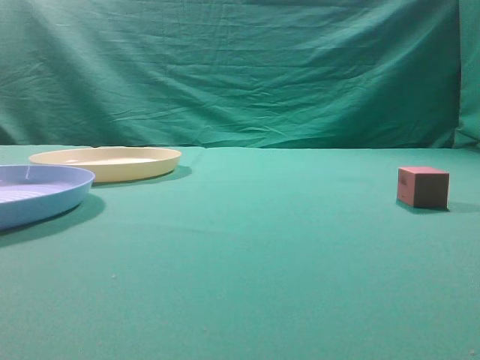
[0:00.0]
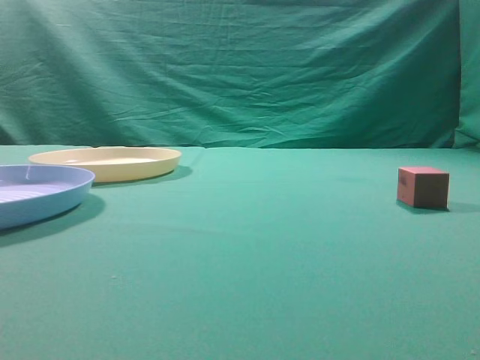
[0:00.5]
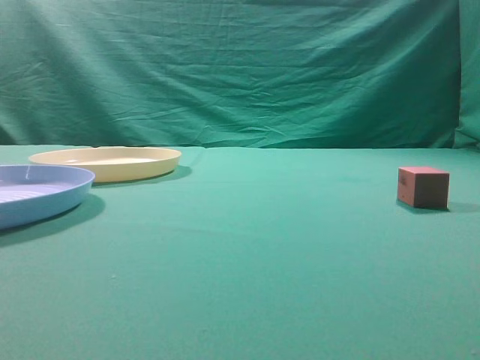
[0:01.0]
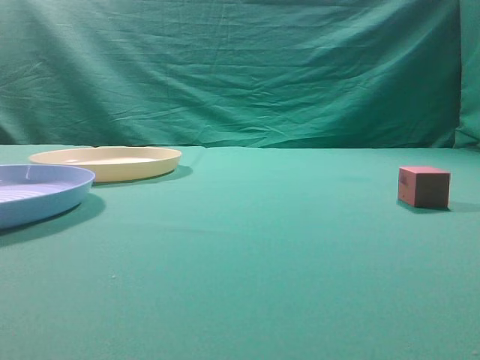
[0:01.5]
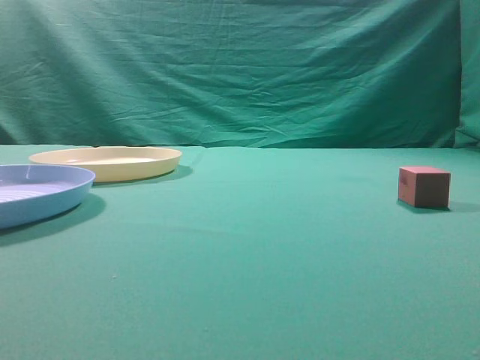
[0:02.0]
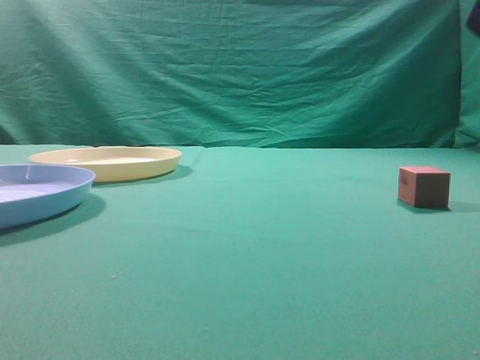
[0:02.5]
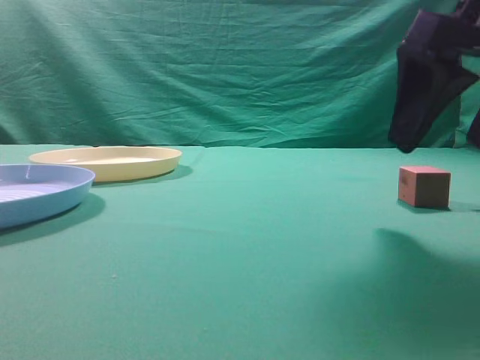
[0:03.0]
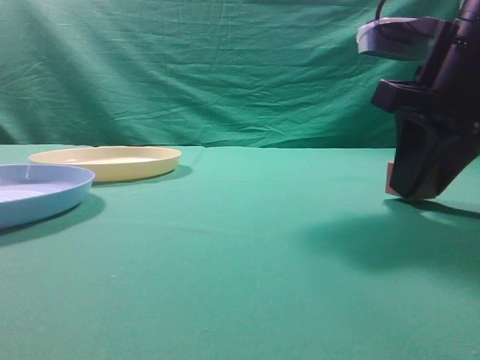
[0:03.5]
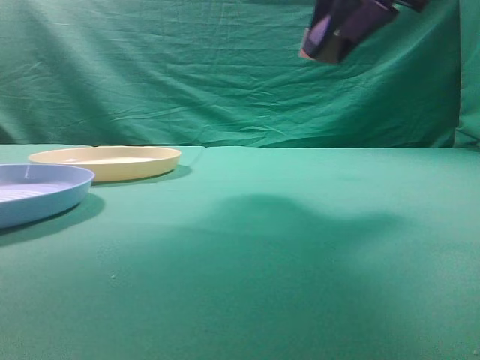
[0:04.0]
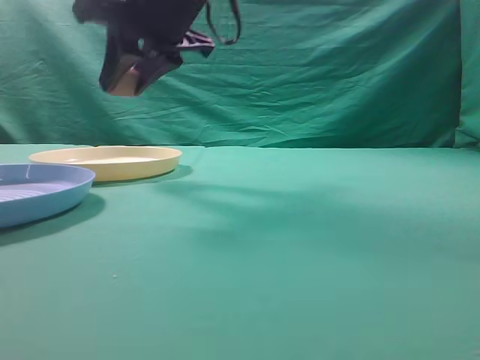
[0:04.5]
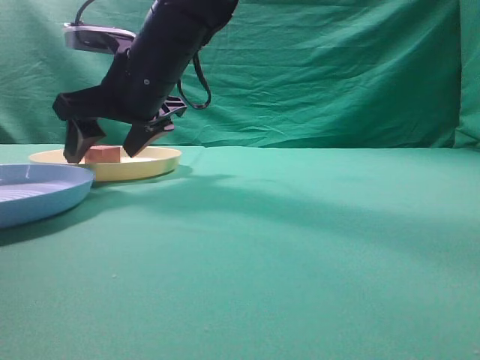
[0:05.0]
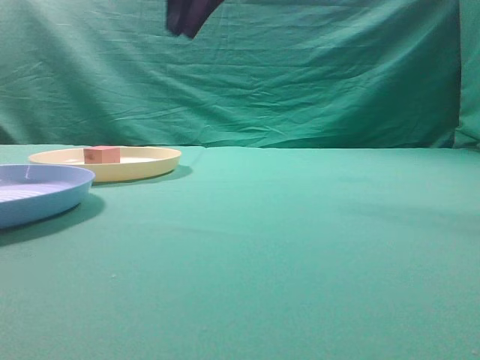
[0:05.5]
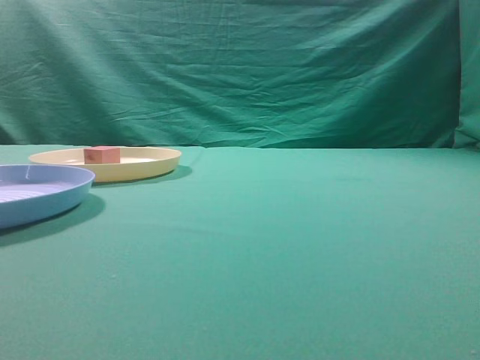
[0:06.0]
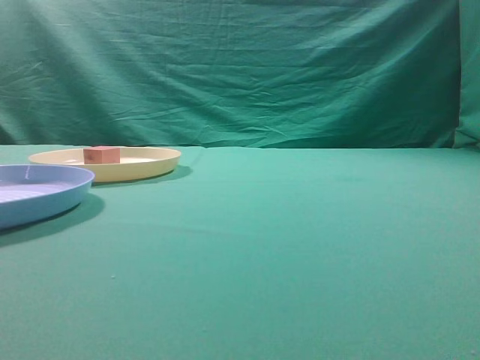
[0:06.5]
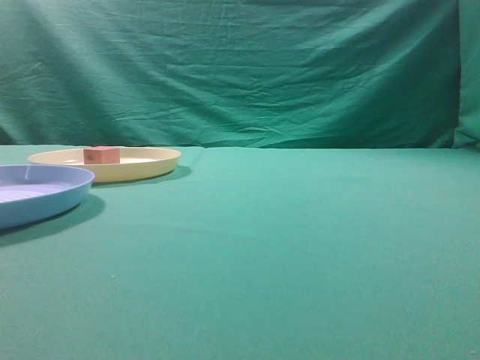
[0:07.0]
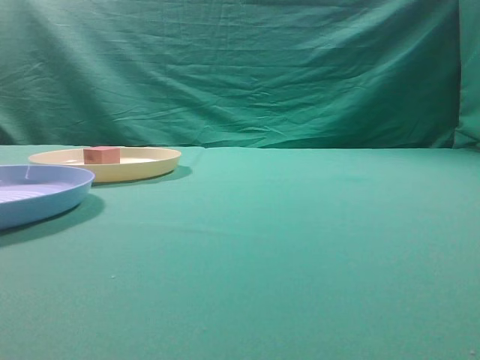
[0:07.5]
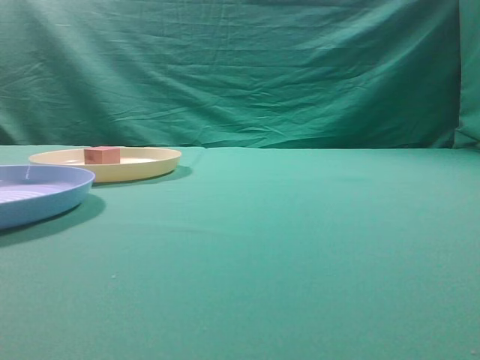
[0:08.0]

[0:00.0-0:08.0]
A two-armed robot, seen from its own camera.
Task of the whole recording: pick up the cube block from the table and put it on the plate.
Step, 0:00.0 to 0:03.5: Grasp the small cube on the table.
Step, 0:04.0 to 0:05.0: Place it into the yellow plate.
0:02.0 to 0:04.0: The right gripper goes roughly 25 cm forward and to the left, and opens.
0:04.0 to 0:06.0: The right gripper travels upward and backward by about 20 cm, and closes its fingers.
